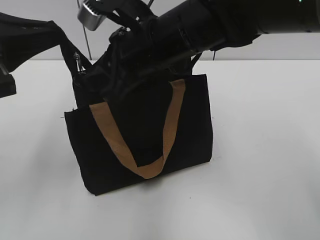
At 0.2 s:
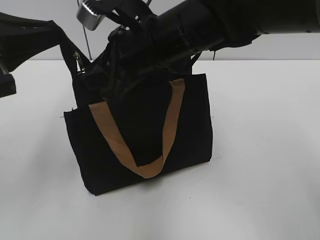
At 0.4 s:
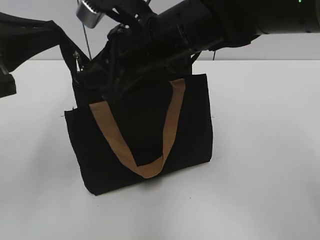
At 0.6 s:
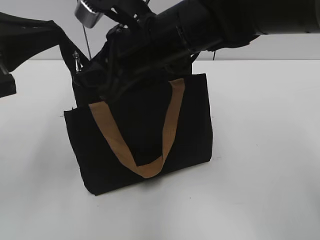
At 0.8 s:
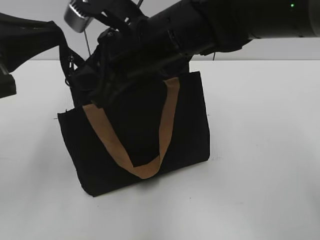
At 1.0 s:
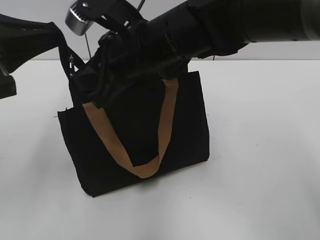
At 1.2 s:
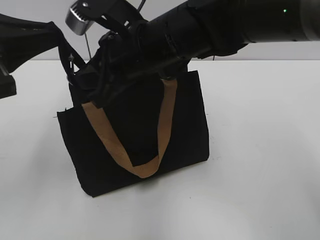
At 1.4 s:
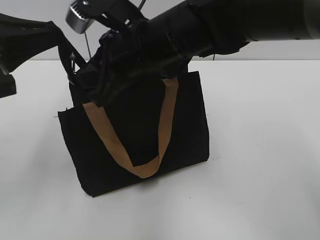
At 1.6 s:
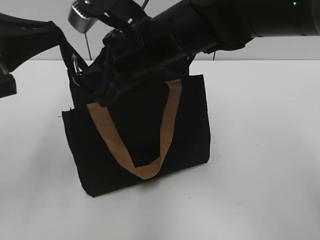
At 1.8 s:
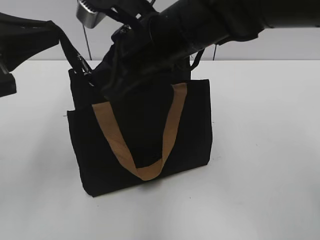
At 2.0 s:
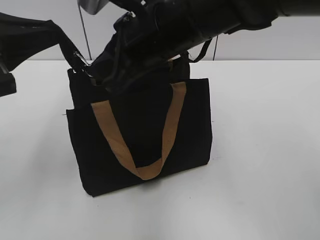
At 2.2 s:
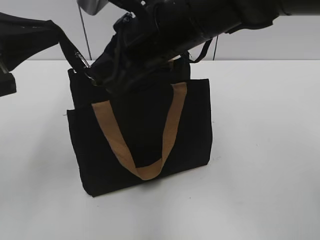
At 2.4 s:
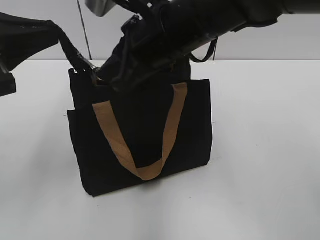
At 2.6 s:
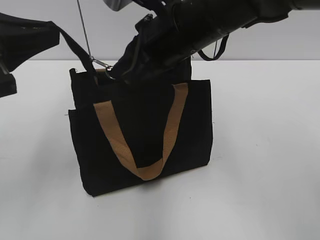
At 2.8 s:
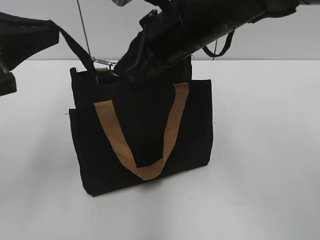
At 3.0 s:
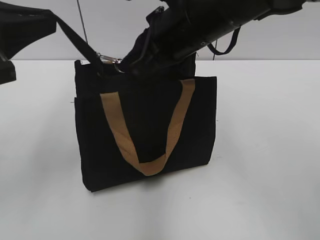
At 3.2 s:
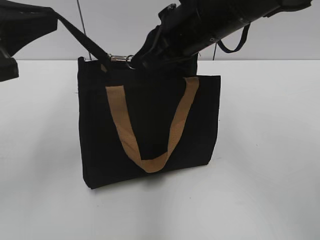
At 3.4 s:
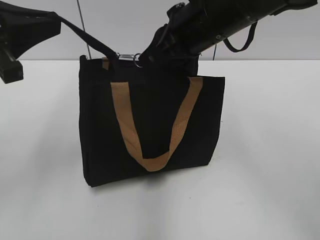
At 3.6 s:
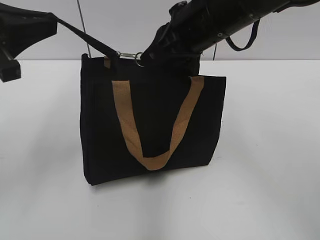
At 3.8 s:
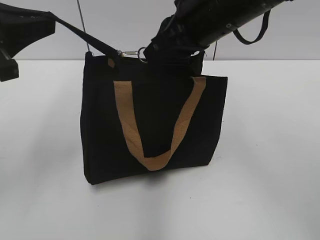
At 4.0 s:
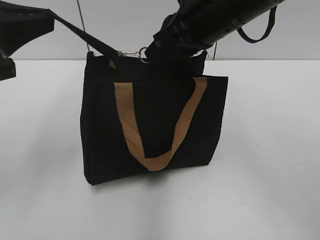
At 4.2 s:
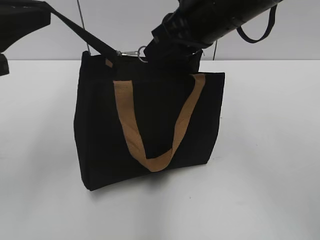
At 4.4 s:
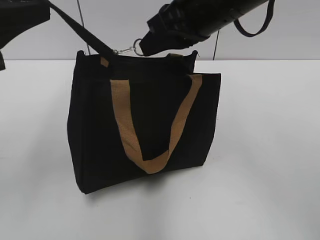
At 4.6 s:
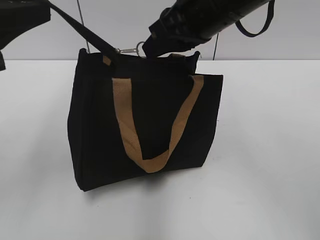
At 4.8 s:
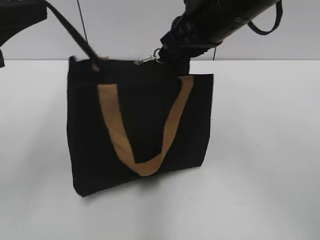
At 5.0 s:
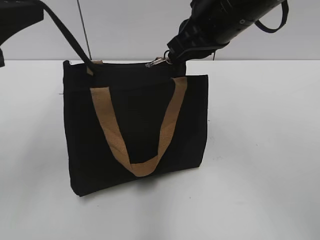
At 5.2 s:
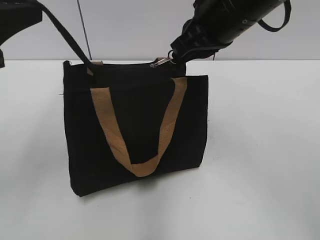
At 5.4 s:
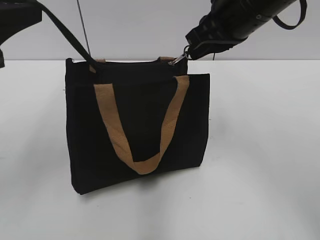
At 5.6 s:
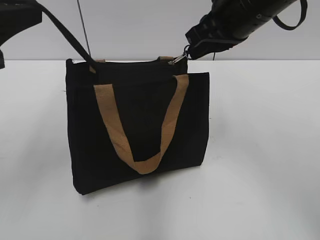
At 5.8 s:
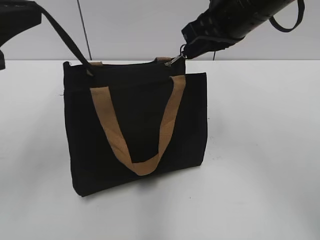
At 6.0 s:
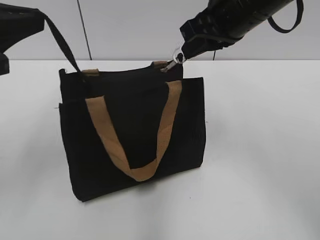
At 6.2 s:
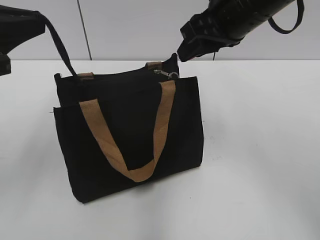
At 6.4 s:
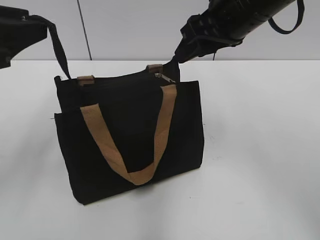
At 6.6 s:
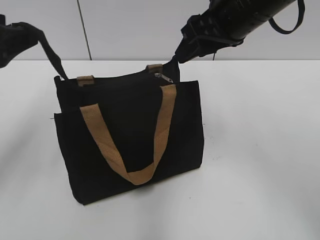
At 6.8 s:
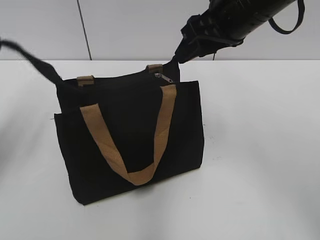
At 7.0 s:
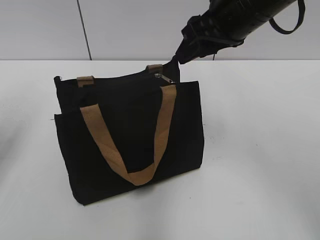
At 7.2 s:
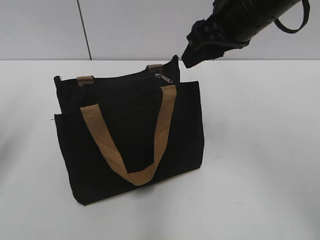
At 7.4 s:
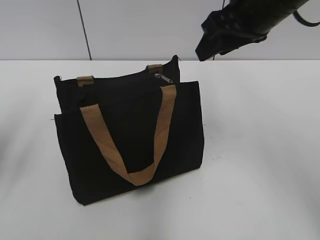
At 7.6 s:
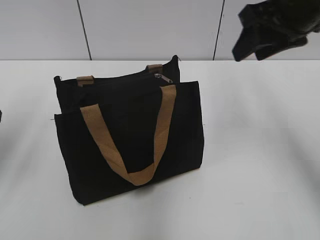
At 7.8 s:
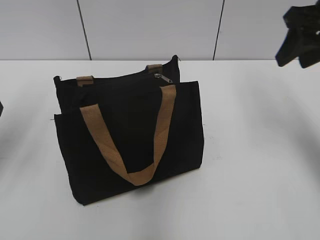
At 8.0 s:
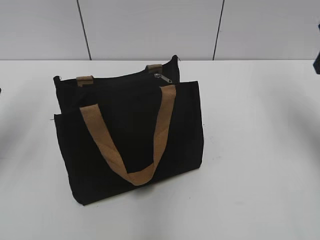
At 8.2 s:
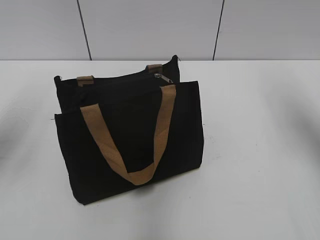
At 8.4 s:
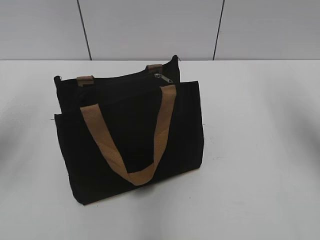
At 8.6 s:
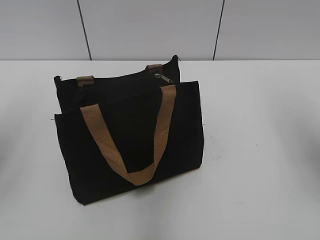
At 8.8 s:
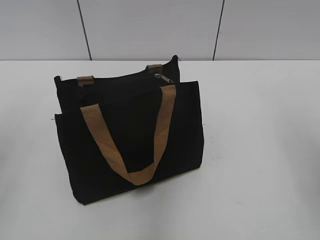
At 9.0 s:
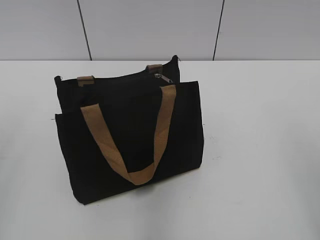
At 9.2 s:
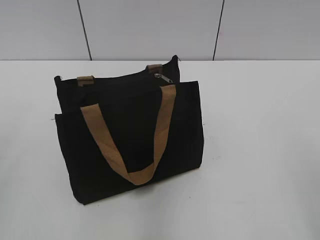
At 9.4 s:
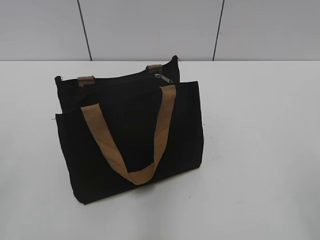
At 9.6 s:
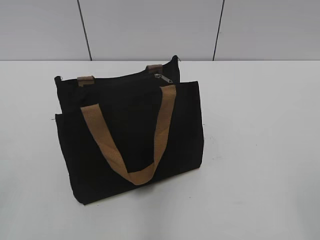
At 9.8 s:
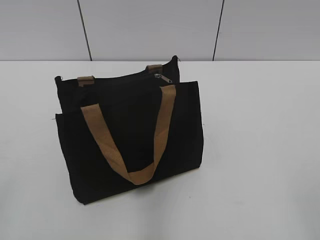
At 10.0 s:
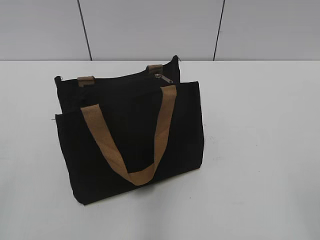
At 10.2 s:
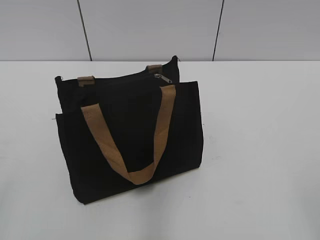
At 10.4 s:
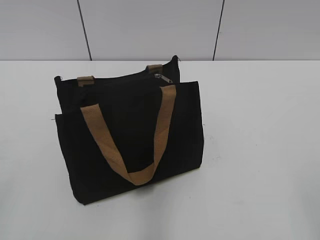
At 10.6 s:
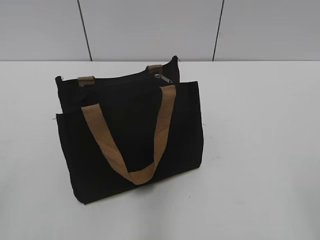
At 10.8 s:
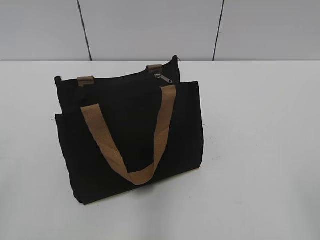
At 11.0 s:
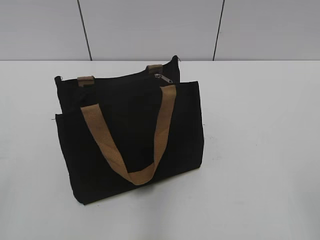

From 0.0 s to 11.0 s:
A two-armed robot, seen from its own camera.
Step, from 0.0 s to 6.0 s: Zip up the bag with your right hand.
Step, from 6.2 s to 7.2 s: Grab the zipper with your left hand.
From 0.0 s to 1.6 s: The right gripper closes its fingers.
From 1.6 s to 3.2 s: The right gripper travels to the right by some 5 cm.
From 3.2 s to 4.8 s: There are only small adjustments of the grippers.
From 4.8 s to 6.2 s: The right gripper opens its fingers.
From 6.2 s to 7.8 s: The left gripper changes place by roughly 5 cm, and opens up, while the right gripper shifts approximately 10 cm to the right, and opens.
From 7.8 s to 9.4 s: The grippers both shift backward by roughly 25 cm.
